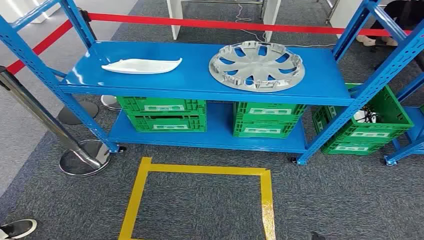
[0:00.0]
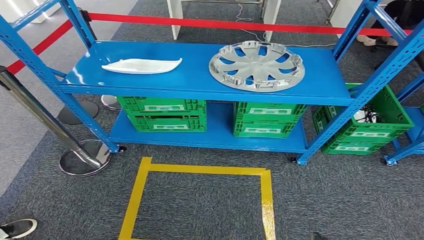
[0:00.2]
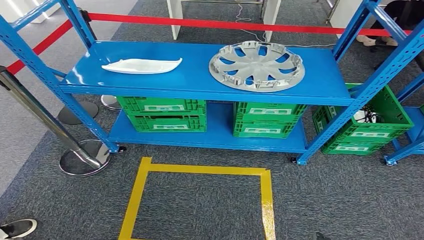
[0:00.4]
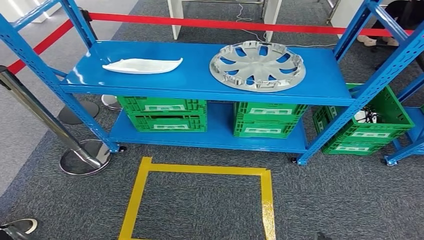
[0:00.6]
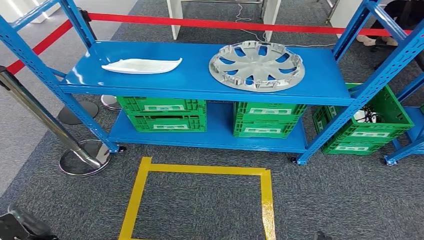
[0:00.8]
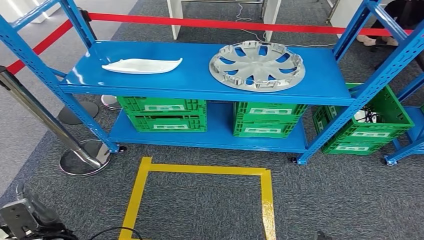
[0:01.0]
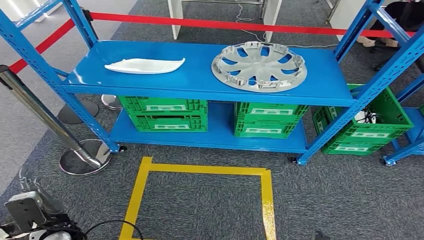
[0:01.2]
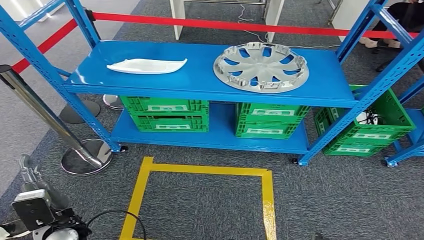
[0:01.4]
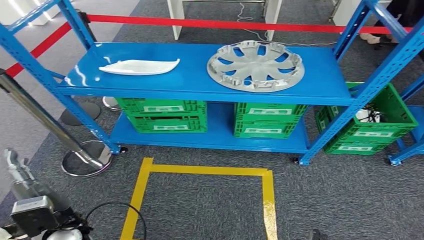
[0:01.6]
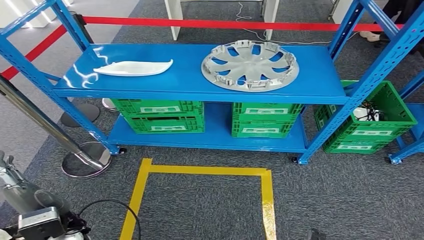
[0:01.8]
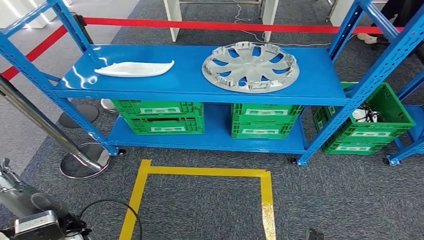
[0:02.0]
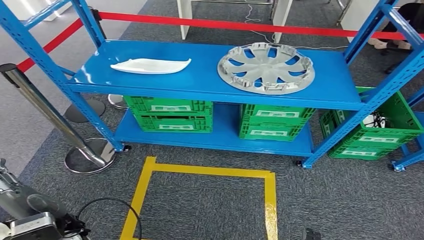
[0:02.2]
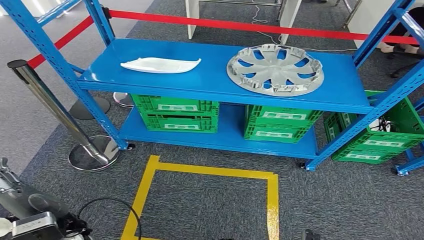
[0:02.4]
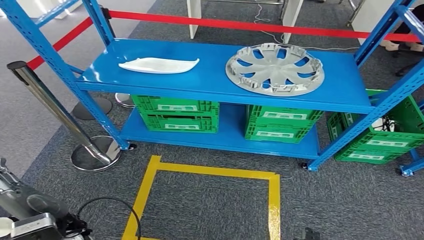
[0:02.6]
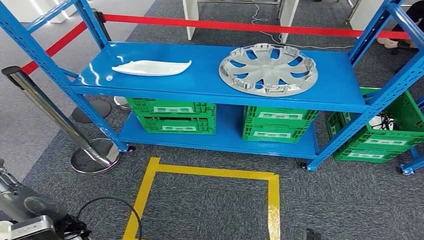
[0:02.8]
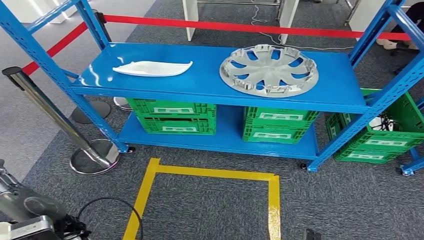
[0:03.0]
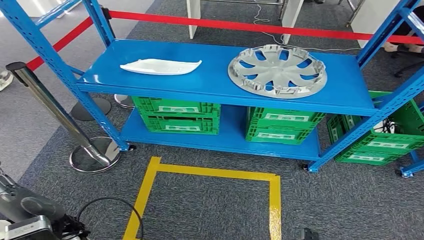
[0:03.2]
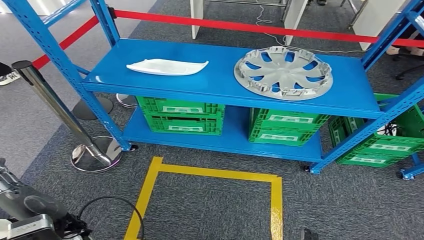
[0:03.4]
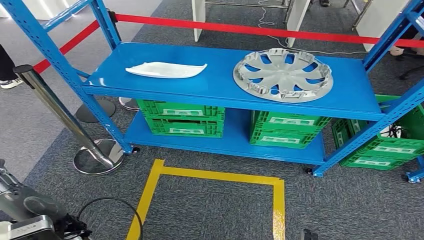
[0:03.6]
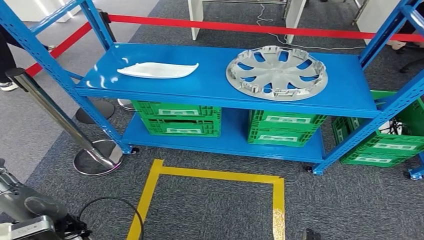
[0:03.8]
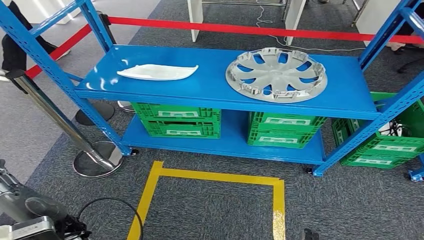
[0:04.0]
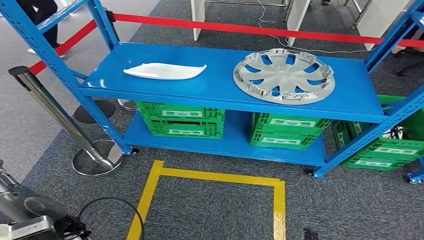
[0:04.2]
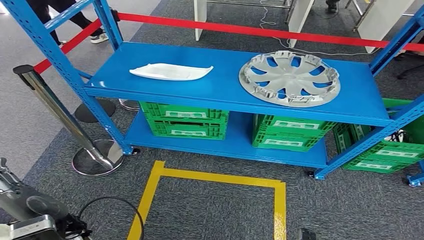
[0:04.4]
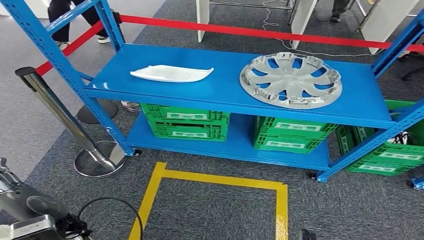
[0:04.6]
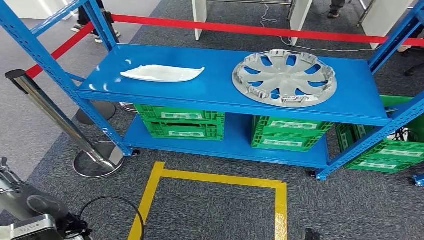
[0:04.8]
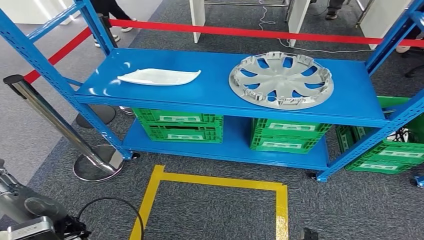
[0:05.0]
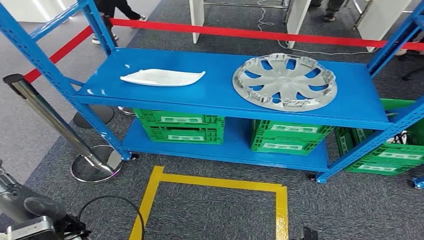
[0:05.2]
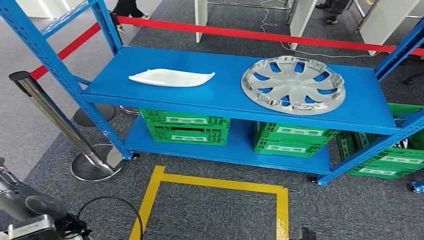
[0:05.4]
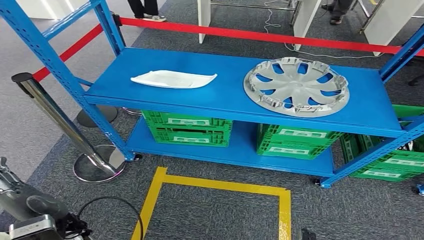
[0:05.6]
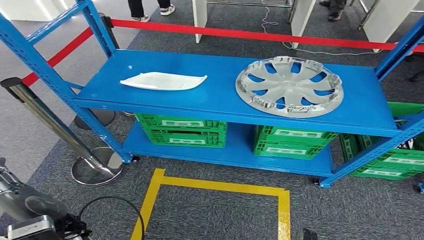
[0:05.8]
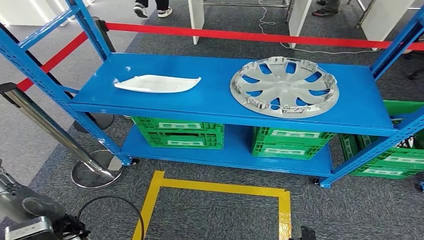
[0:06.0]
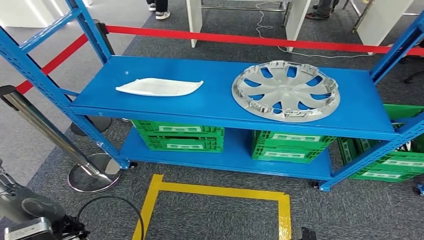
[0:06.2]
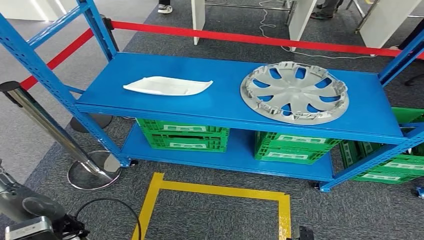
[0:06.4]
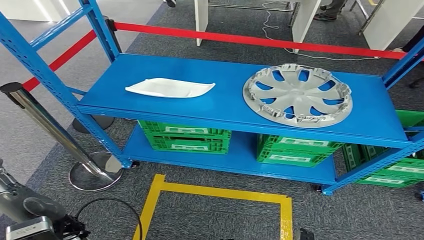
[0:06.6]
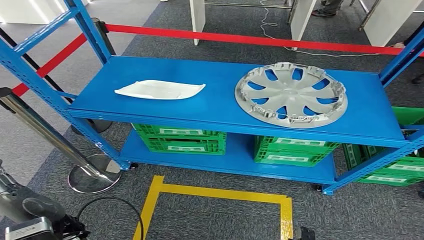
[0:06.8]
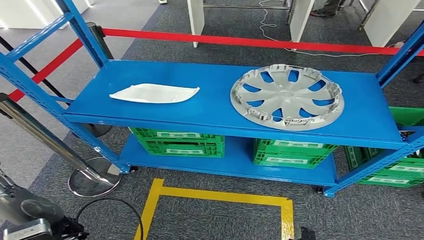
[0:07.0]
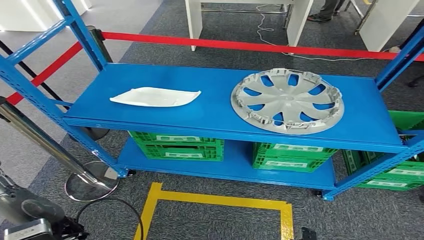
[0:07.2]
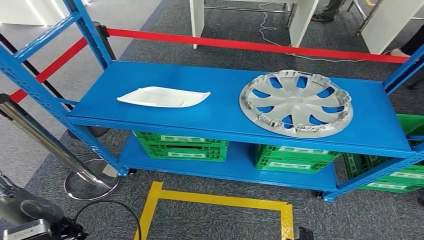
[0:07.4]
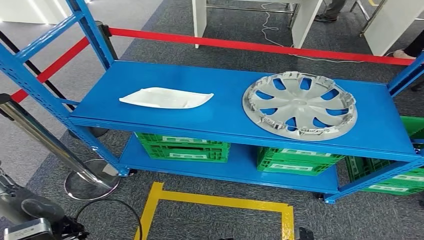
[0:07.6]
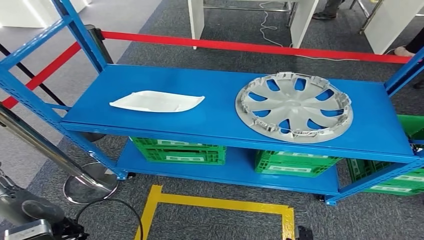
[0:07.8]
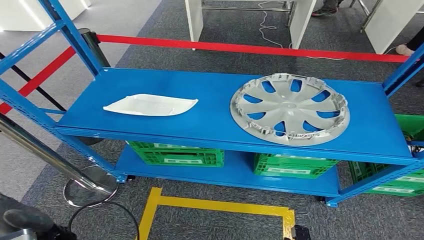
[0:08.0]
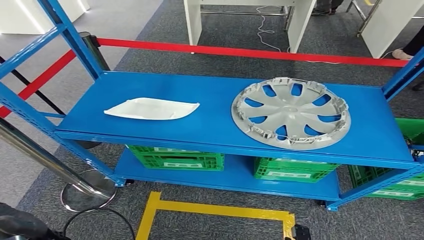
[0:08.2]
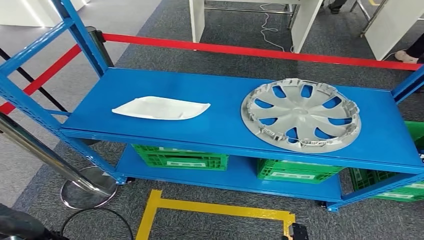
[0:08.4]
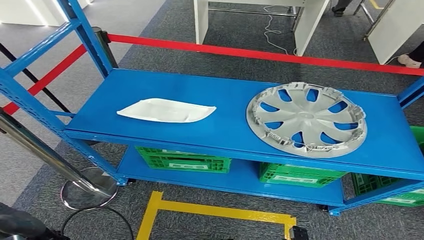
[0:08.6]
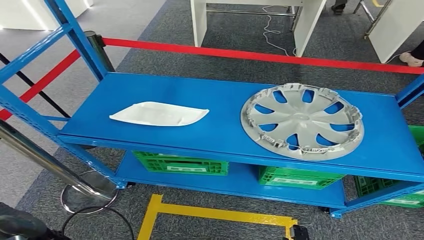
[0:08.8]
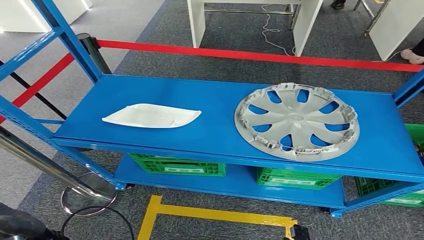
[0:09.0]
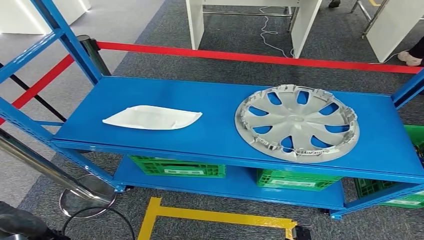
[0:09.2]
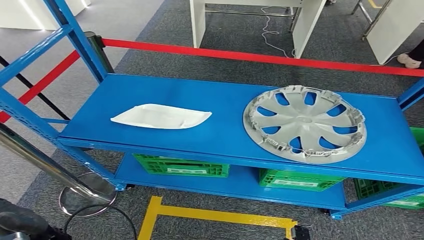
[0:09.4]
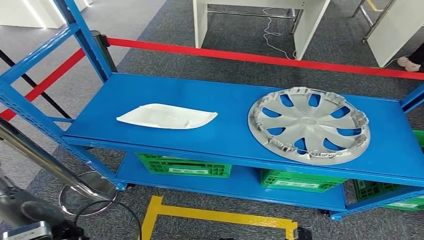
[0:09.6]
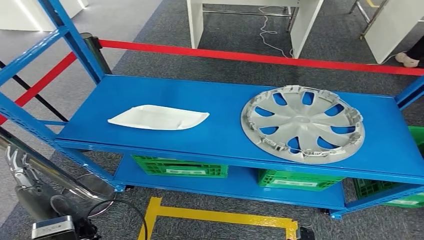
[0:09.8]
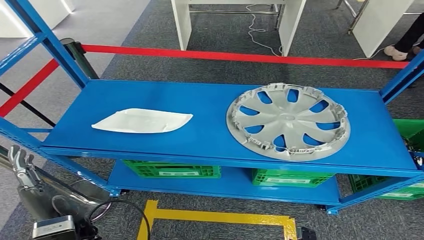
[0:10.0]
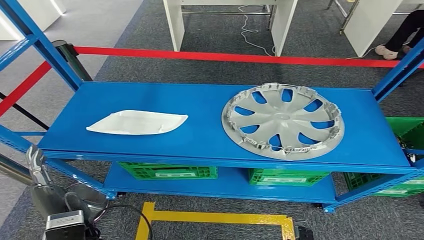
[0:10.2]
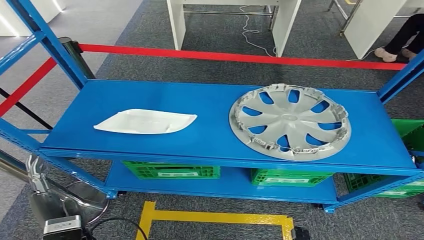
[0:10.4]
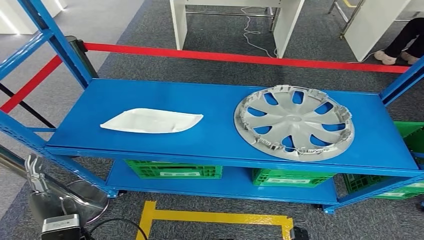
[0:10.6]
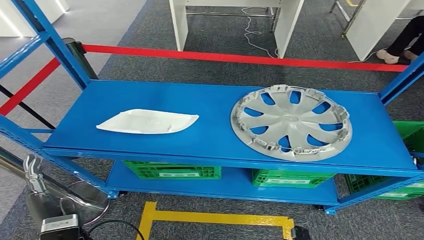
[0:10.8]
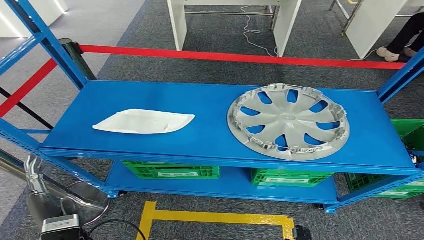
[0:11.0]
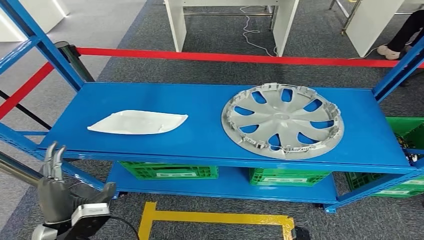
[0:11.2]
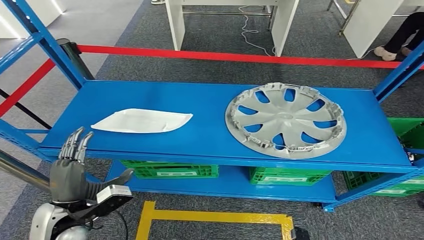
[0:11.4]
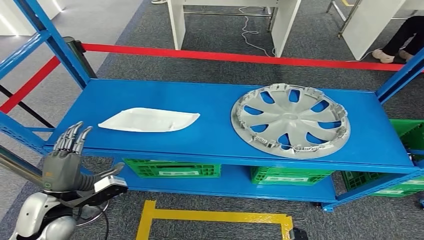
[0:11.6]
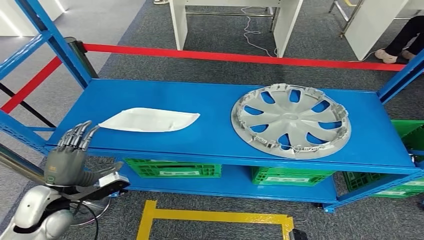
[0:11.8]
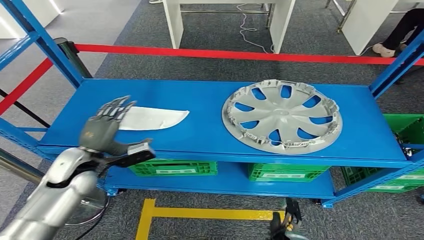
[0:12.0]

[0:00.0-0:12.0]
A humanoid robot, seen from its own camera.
Step, 0:00.0 to 0:11.2: Pick up the small component from the shelf.

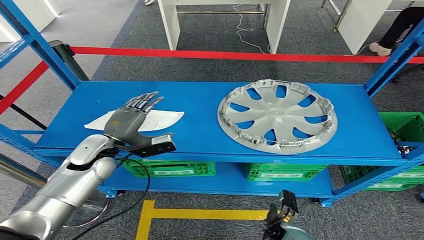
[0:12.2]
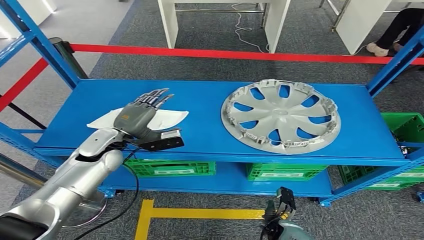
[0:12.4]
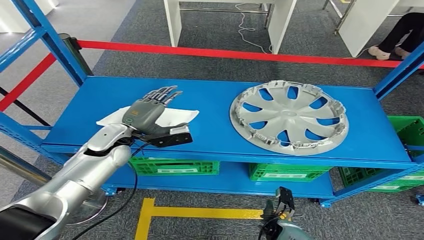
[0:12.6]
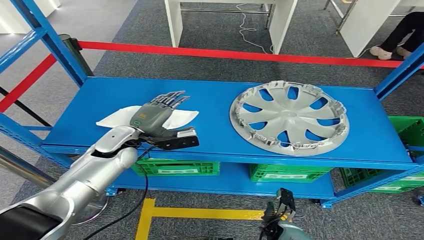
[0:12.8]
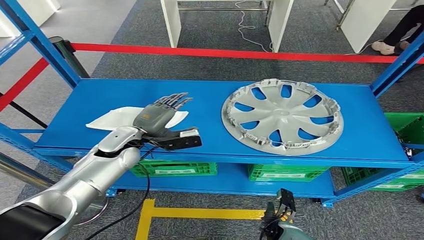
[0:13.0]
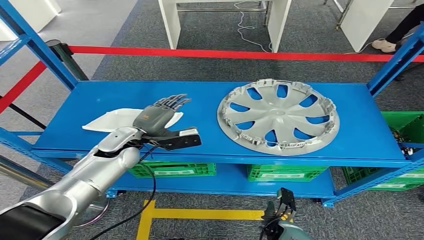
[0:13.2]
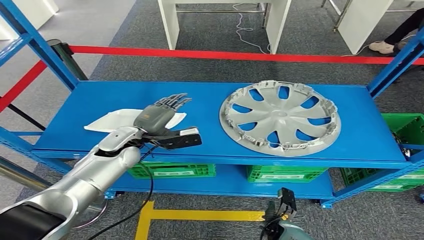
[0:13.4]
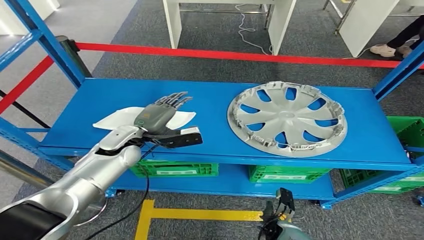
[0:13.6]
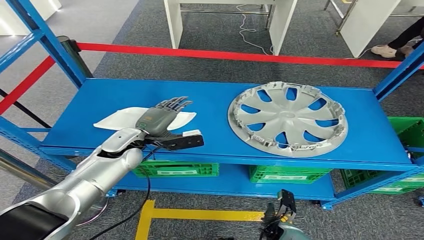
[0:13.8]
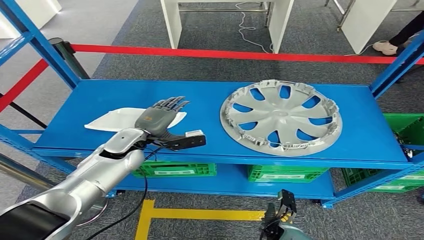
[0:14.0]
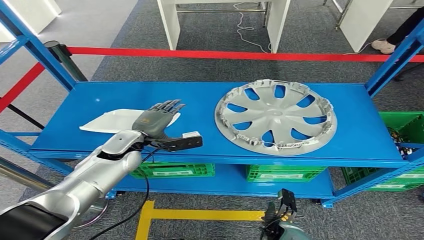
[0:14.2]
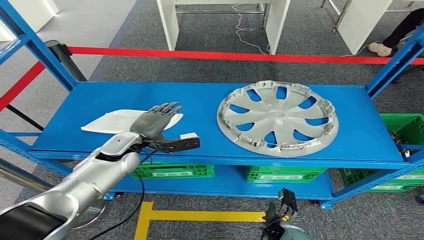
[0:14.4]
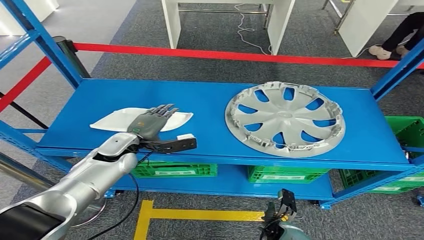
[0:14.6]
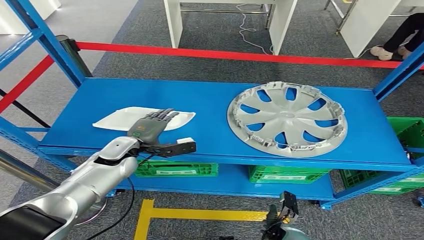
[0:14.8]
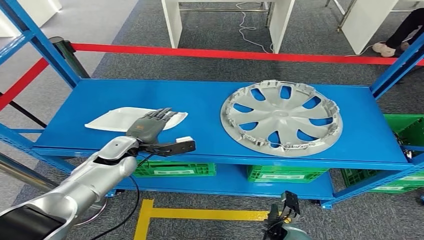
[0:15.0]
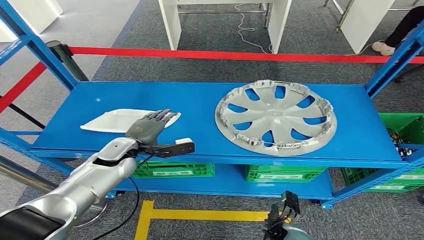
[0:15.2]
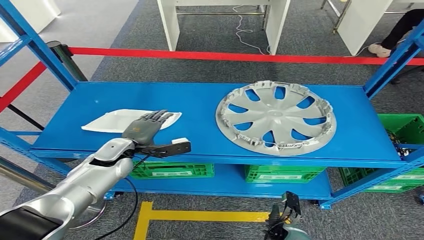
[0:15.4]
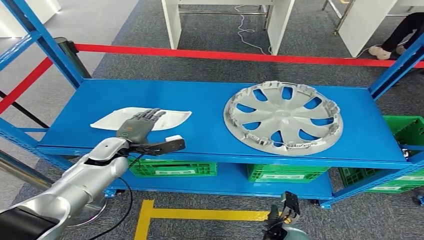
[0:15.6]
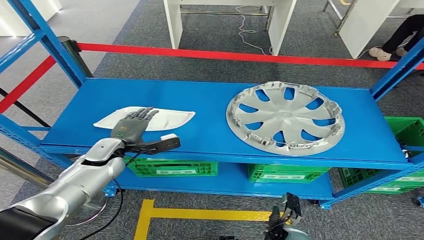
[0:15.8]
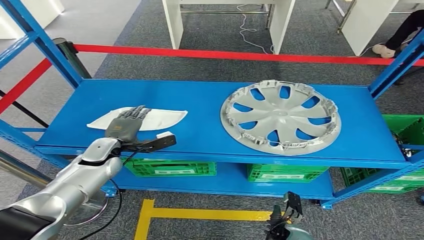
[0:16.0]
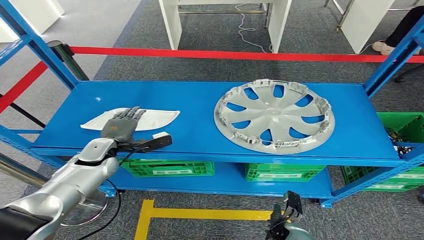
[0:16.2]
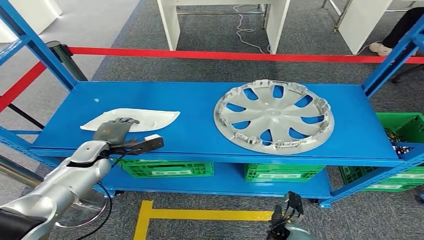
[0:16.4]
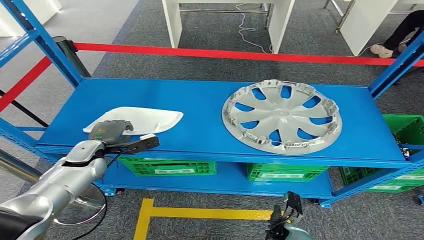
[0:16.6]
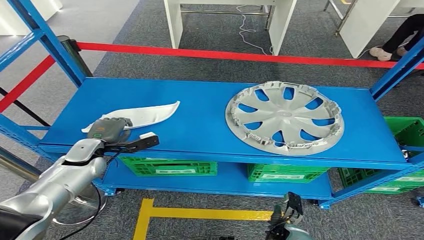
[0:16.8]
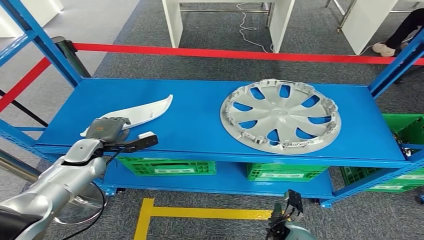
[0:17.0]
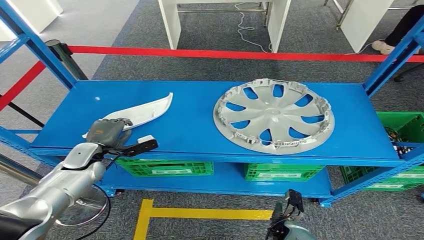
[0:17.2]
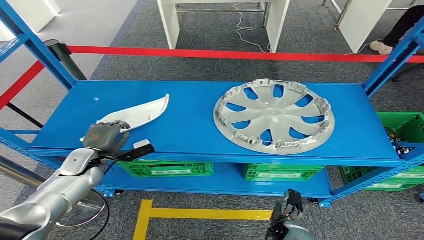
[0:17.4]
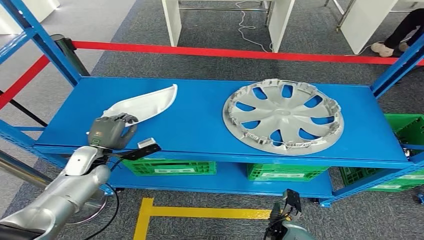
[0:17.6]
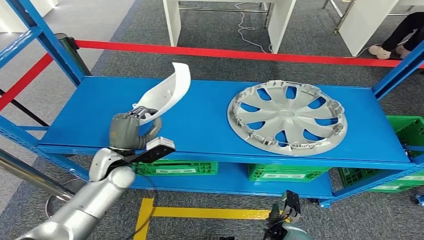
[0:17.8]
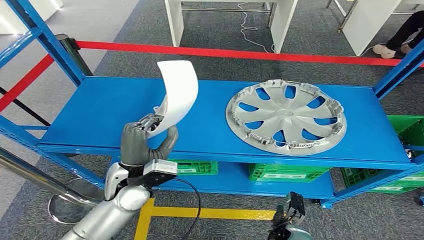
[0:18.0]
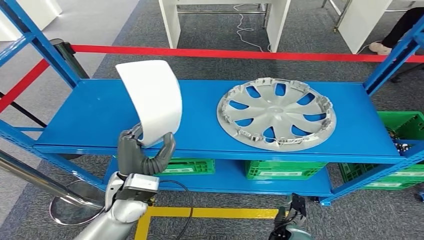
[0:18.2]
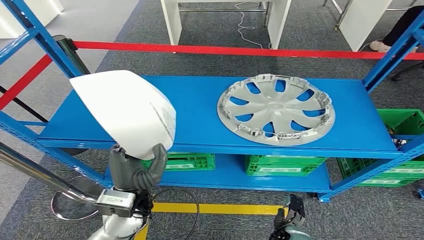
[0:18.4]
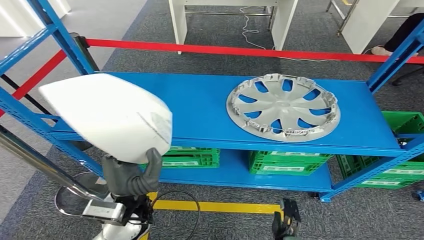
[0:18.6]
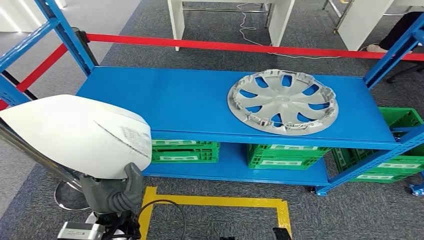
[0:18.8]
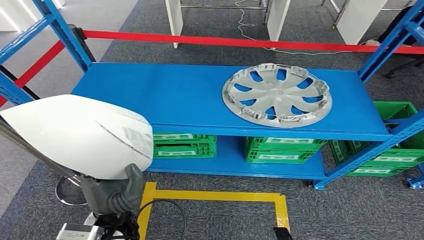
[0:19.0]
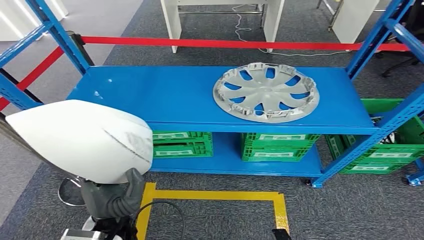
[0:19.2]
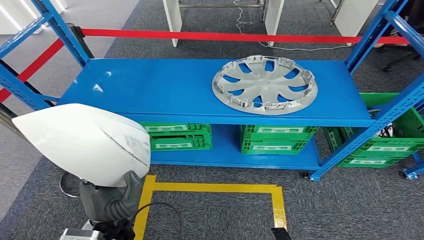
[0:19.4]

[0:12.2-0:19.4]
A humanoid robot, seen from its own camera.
0:15.0 to 0:16.6: The left hand moves to the left, about 10 cm.
